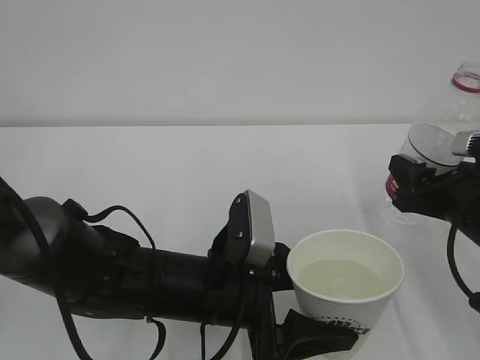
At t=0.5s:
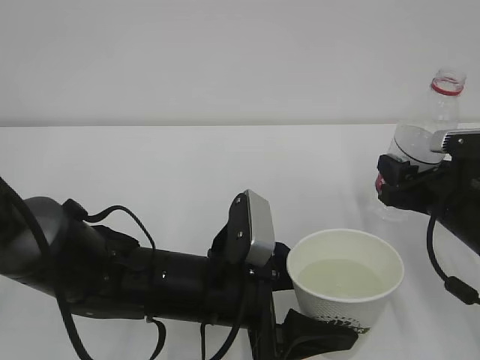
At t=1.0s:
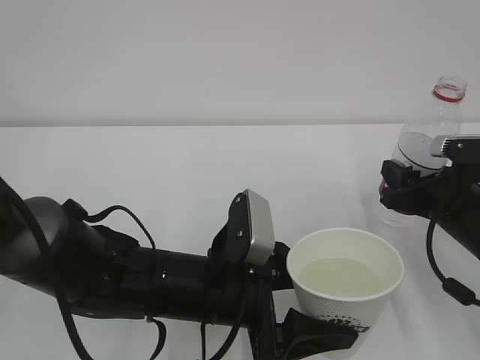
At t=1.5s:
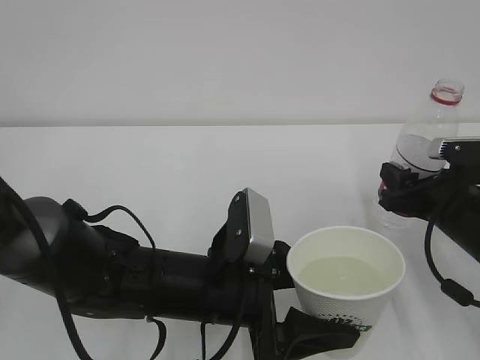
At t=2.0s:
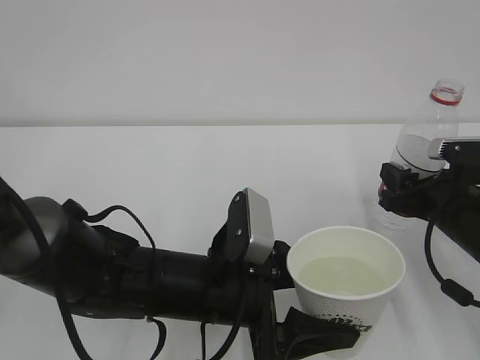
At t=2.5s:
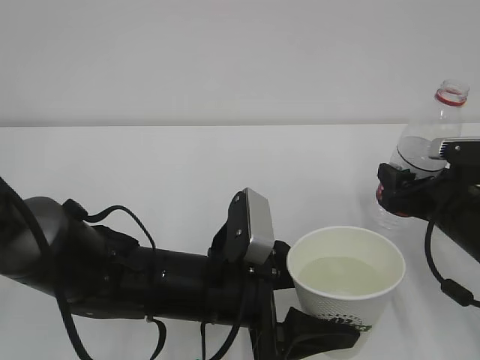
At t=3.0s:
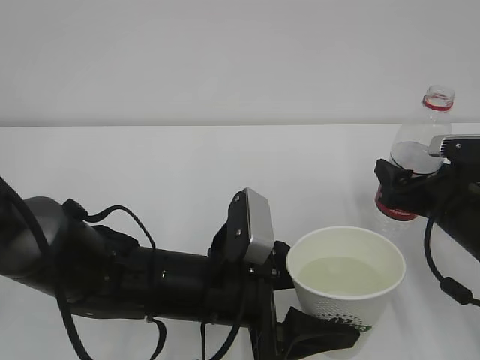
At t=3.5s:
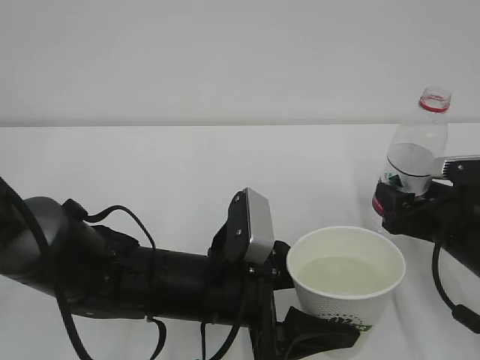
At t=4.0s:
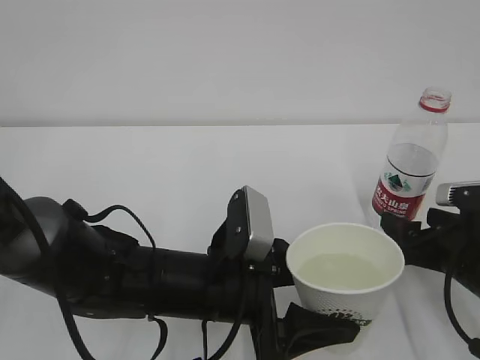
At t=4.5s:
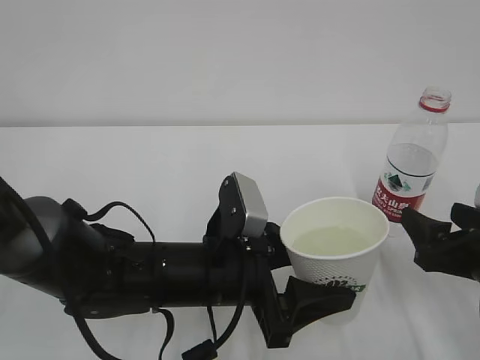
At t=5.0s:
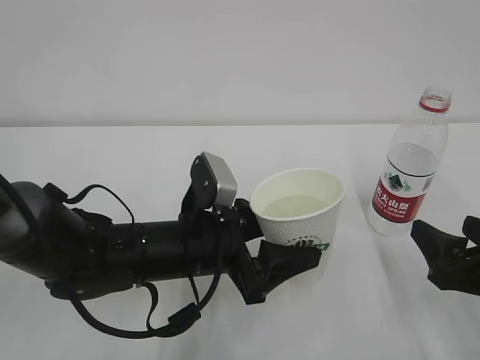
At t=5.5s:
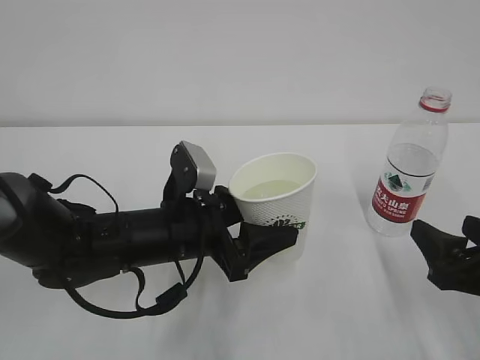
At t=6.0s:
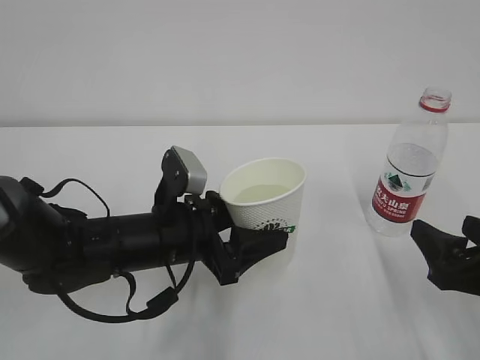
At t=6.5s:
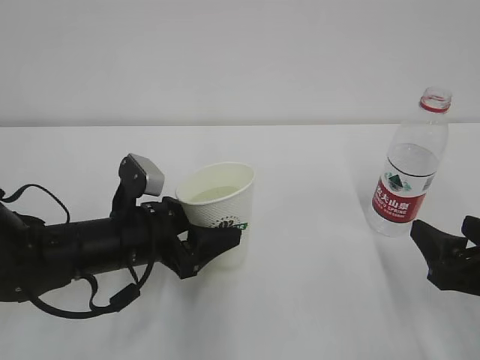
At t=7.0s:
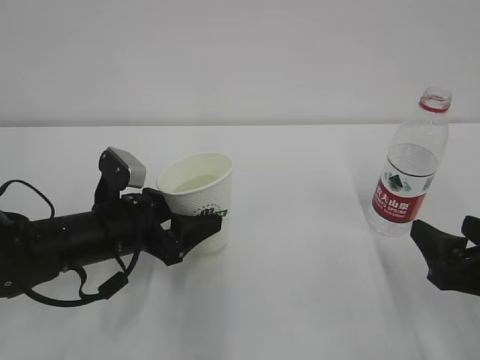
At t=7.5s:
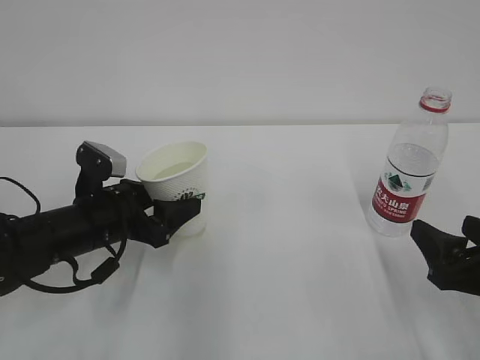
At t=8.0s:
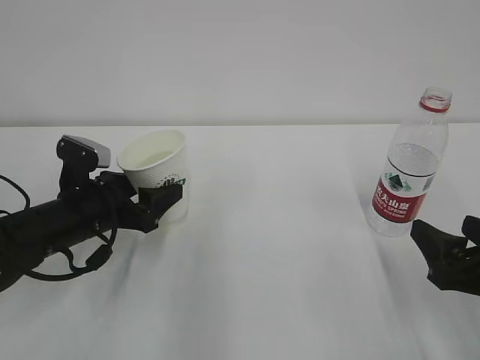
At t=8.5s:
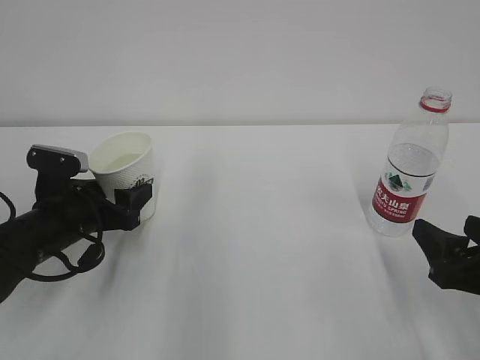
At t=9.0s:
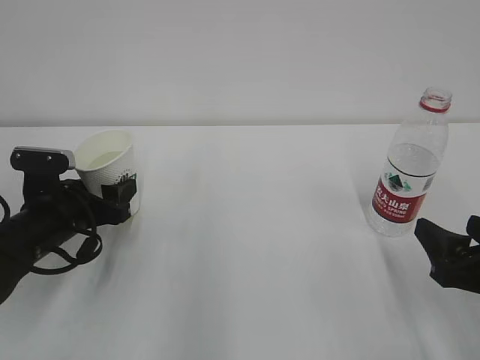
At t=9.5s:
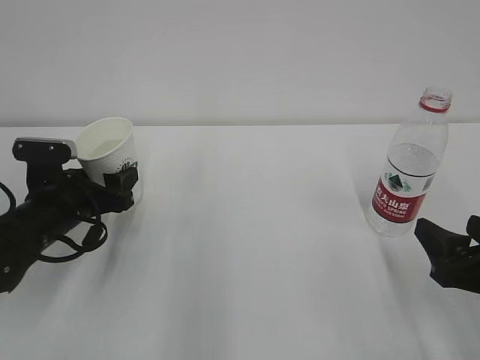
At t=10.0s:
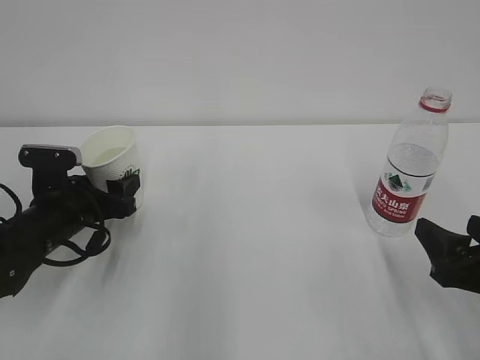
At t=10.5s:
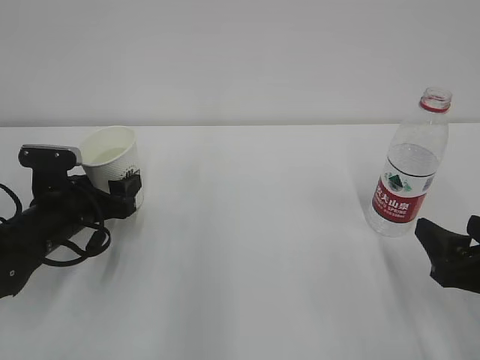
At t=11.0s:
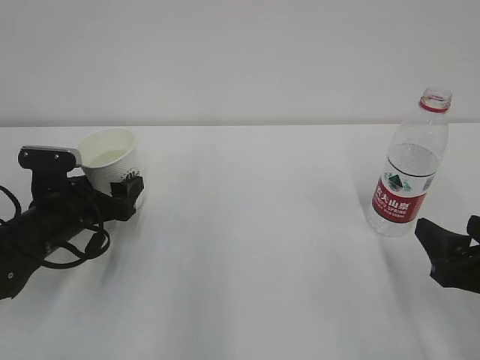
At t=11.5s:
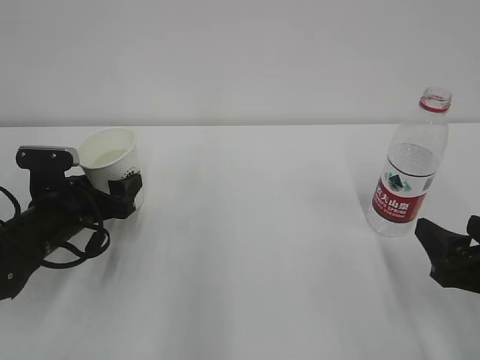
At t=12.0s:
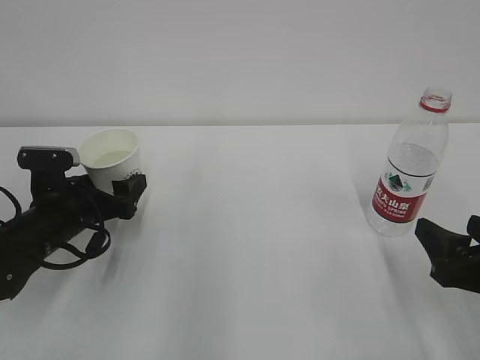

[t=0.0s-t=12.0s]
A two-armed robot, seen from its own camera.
t=0.0s to t=2.0s: The grippers stay close to where they were, moving slightly.
t=2.0s to t=4.0s: The right gripper travels backward by roughly 5 cm, and opens up.
t=4.0s to t=6.0s: The left gripper goes approximately 10 cm forward and to the left. Meanwhile the right gripper travels backward by approximately 5 cm.
t=6.0s to t=8.0s: The left gripper goes about 10 cm to the left.
t=10.0s to t=12.0s: The left gripper opens.

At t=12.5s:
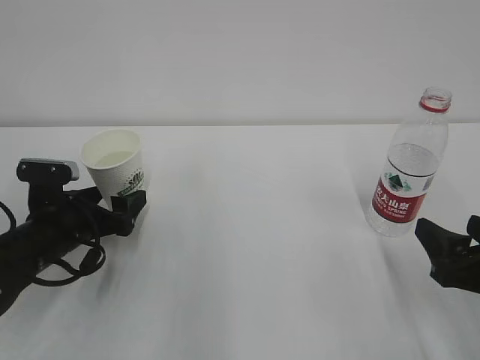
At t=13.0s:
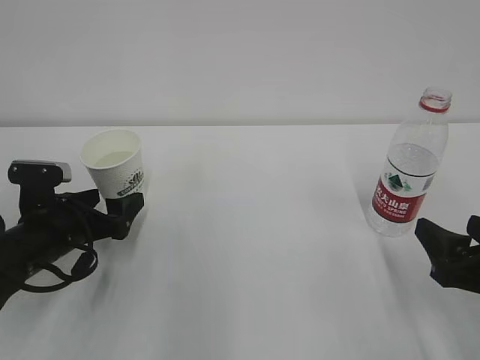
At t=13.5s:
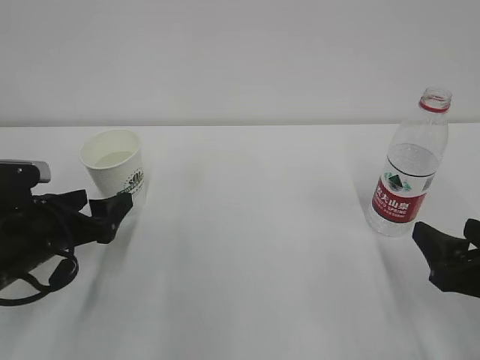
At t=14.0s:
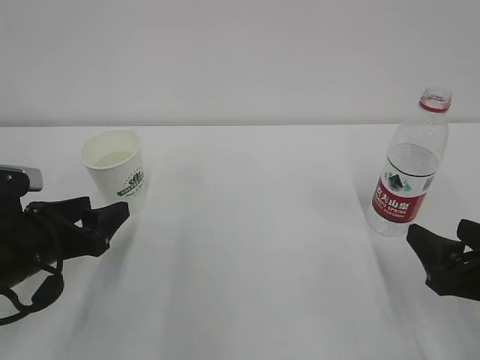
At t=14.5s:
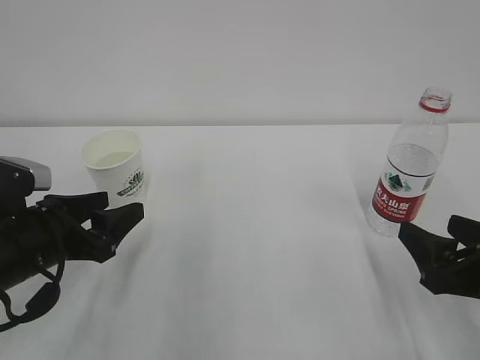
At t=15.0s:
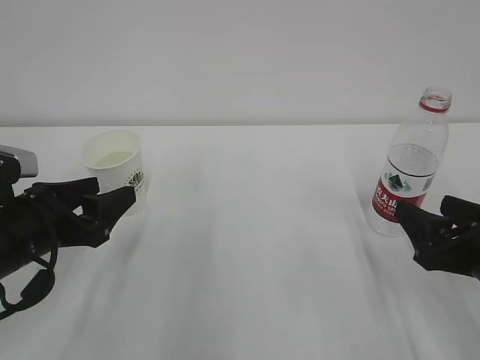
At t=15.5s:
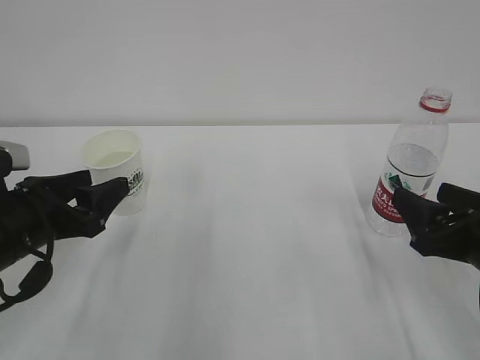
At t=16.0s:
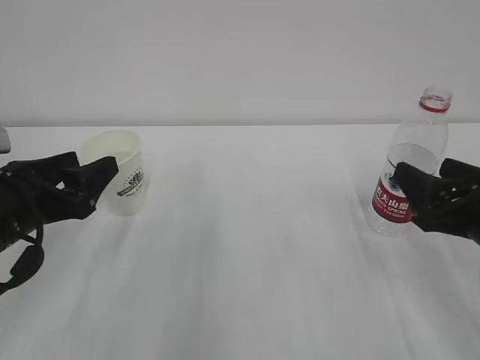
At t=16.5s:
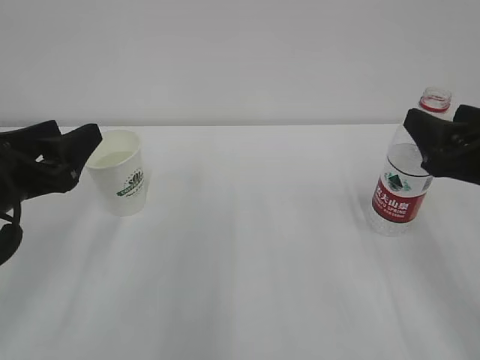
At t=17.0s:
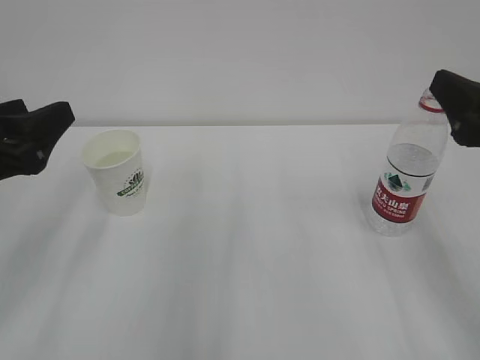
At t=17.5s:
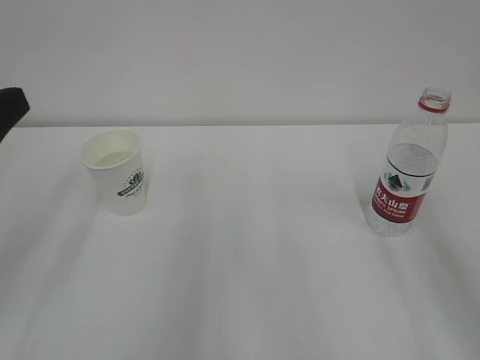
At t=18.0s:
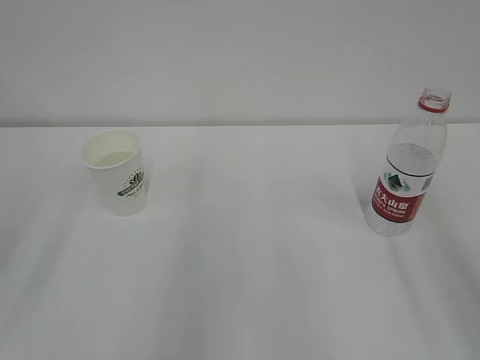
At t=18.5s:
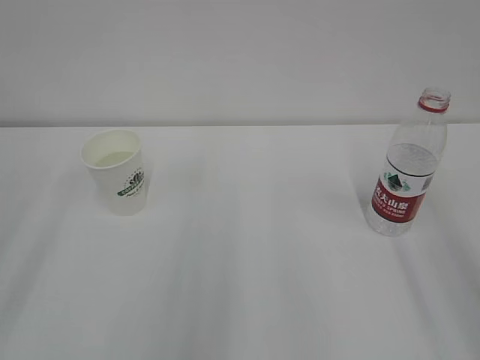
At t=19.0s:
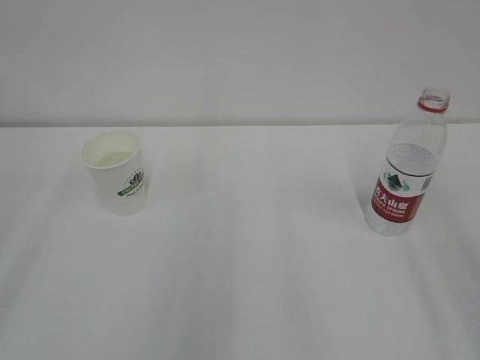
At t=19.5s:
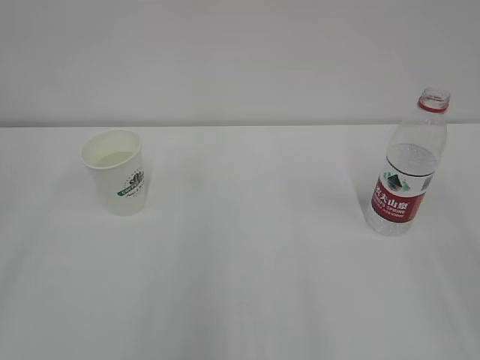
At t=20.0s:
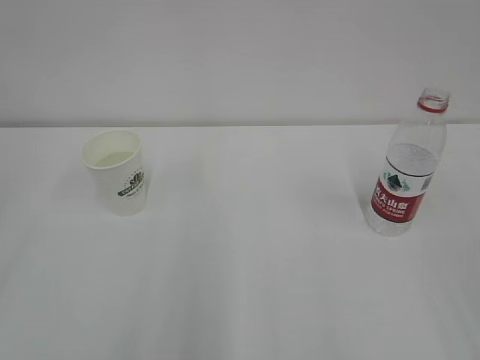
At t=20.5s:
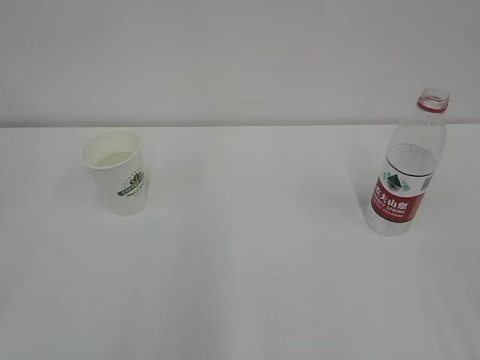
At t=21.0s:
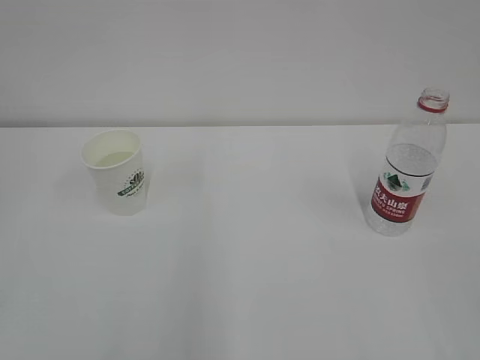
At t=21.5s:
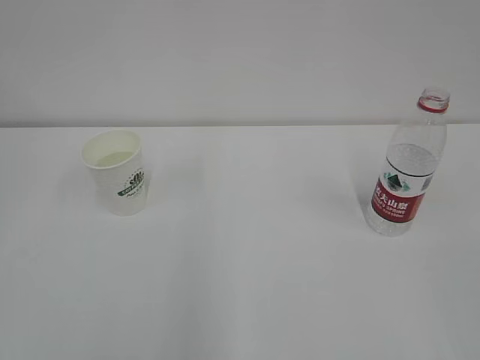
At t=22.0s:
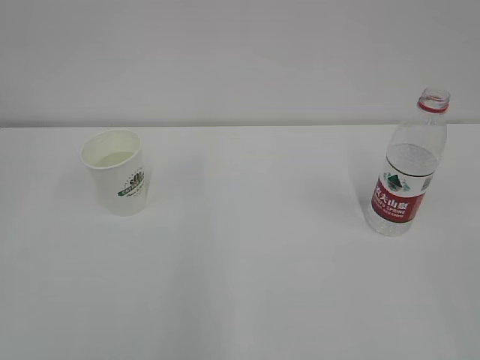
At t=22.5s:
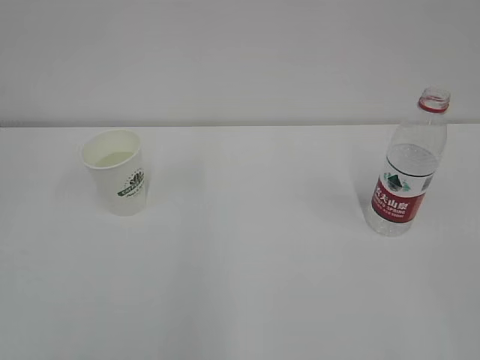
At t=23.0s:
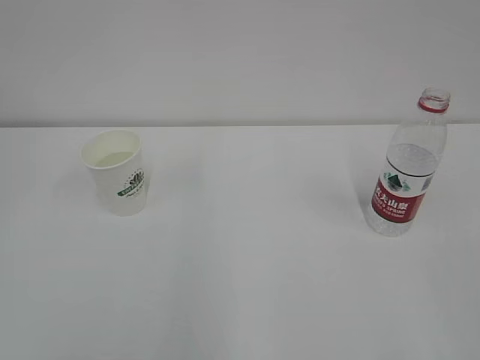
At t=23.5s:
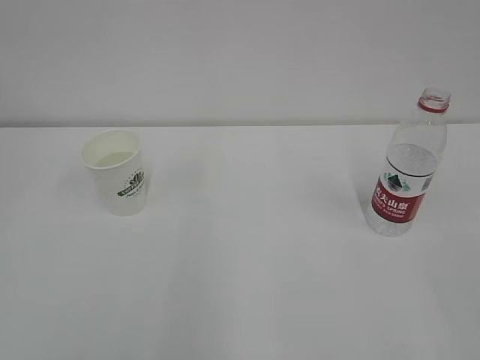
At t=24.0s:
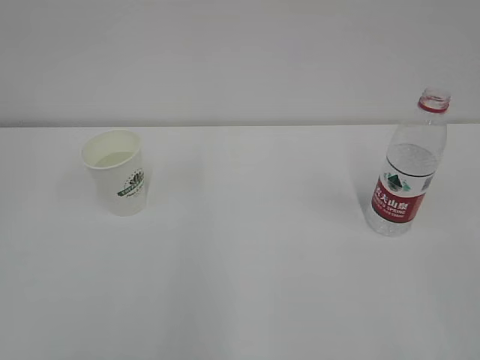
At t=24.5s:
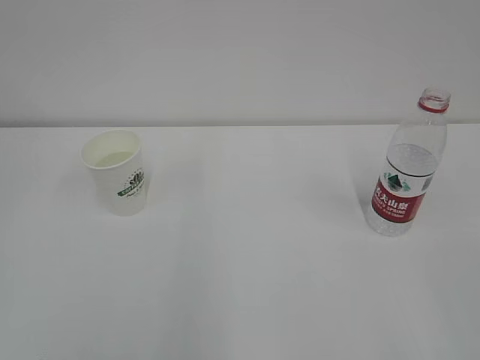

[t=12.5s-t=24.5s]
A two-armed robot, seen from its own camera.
t=12.5s to t=14.5s: The left gripper heads backward, covering approximately 5 cm, and closes up.
t=14.5s to t=16.5s: The left gripper is displaced upward by about 5 cm; the right gripper shifts roughly 10 cm upward and forward.
t=16.5s to t=18.5s: Both grippers move backward and upward, approximately 15 cm.

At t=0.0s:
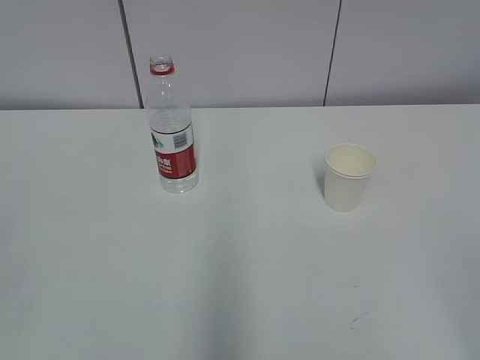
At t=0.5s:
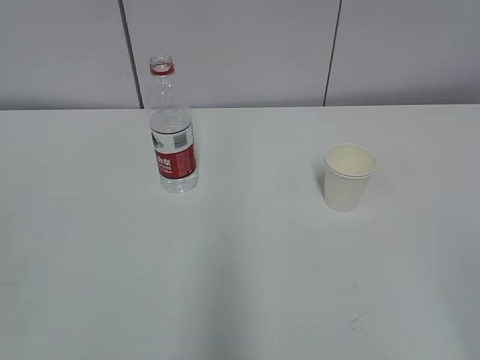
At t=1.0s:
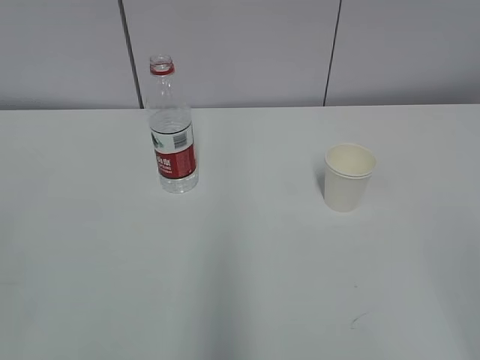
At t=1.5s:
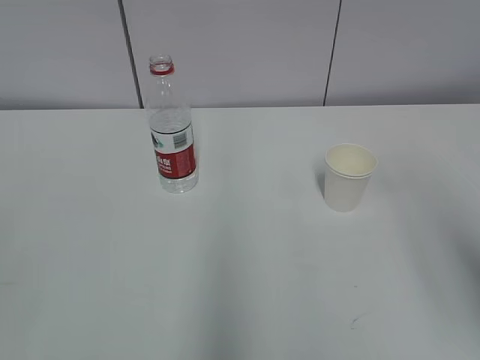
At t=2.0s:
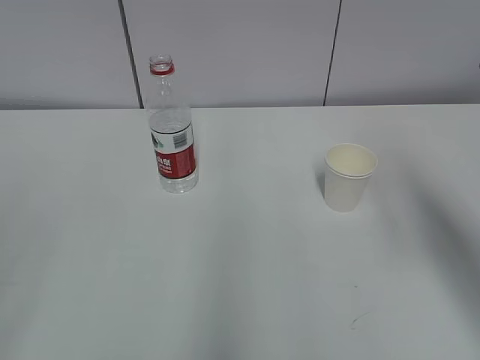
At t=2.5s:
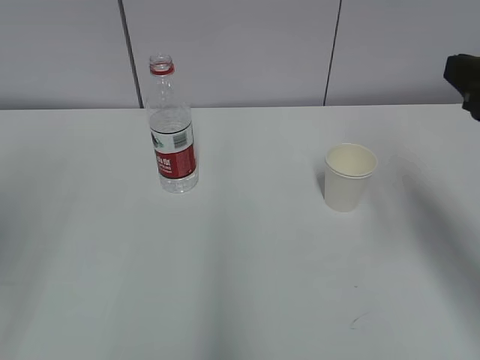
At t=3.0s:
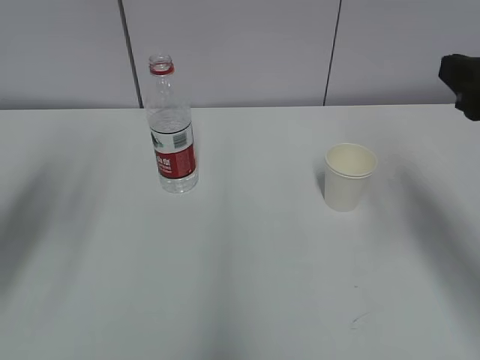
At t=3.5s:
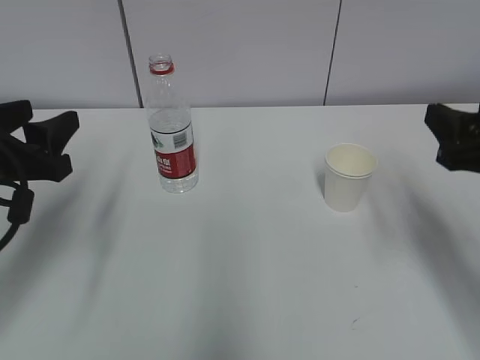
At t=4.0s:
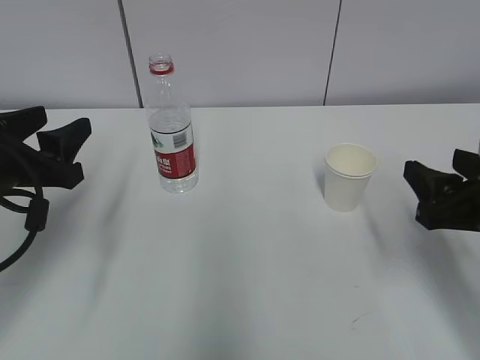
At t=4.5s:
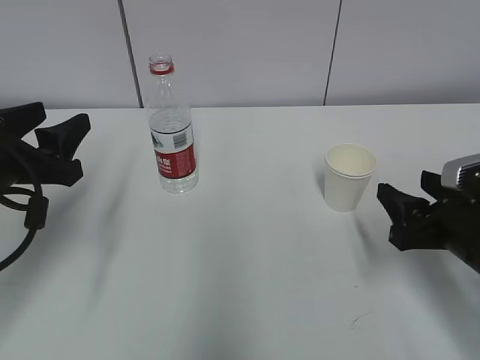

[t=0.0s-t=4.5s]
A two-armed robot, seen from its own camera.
t=2.0s to t=4.5s: The left gripper goes some 25 cm forward and downward, while the right gripper travels downward by some 20 cm.
